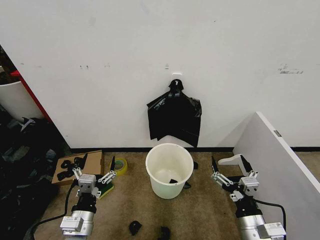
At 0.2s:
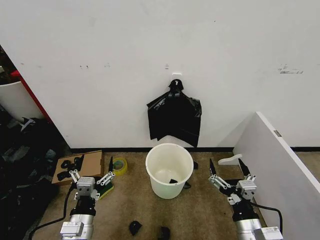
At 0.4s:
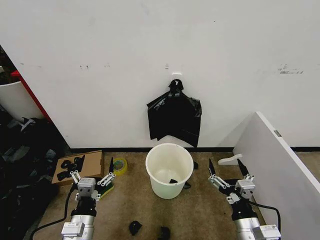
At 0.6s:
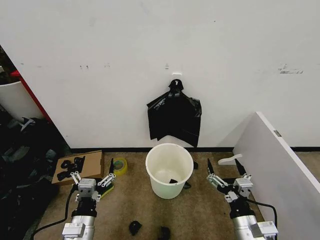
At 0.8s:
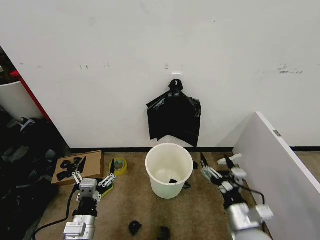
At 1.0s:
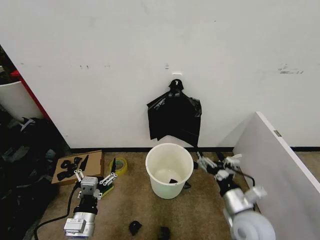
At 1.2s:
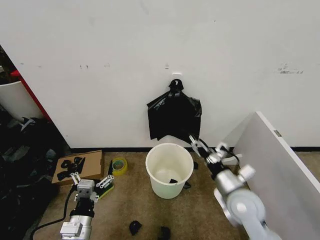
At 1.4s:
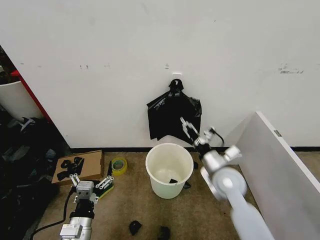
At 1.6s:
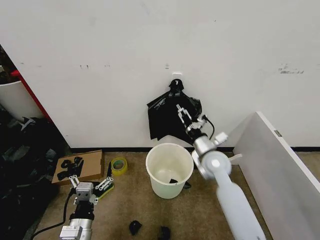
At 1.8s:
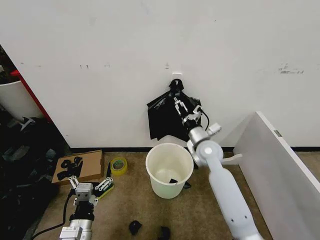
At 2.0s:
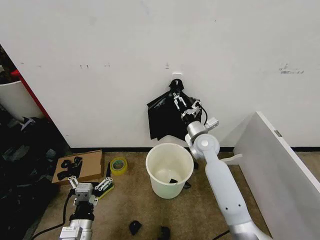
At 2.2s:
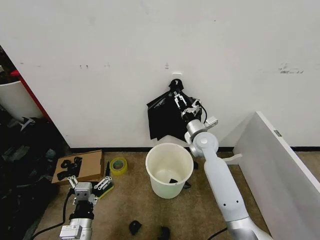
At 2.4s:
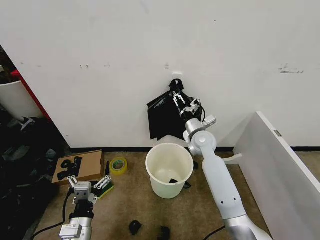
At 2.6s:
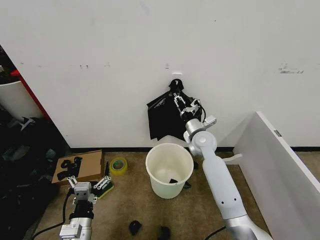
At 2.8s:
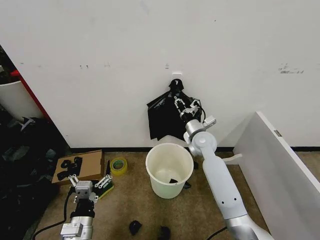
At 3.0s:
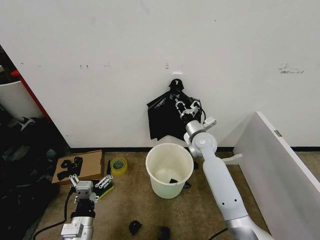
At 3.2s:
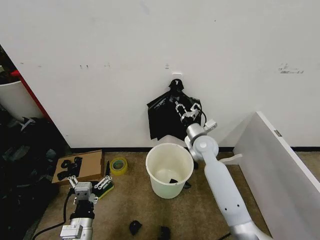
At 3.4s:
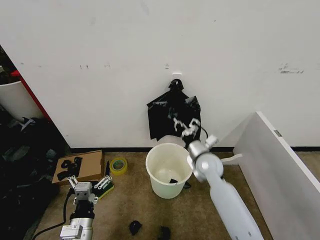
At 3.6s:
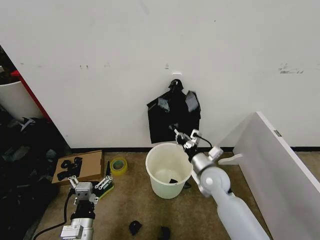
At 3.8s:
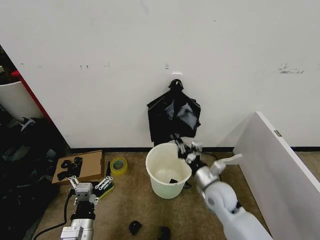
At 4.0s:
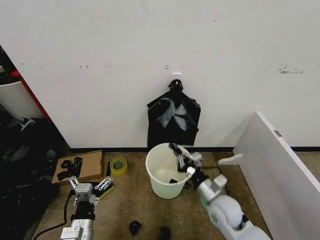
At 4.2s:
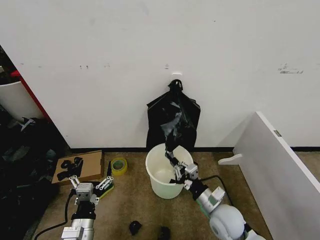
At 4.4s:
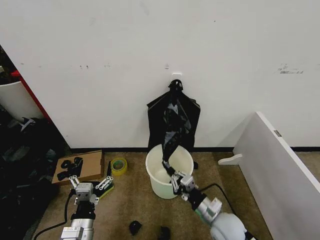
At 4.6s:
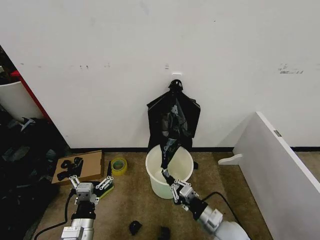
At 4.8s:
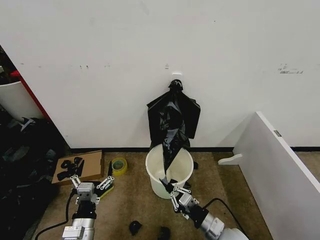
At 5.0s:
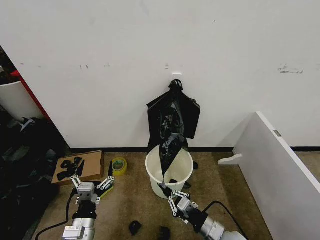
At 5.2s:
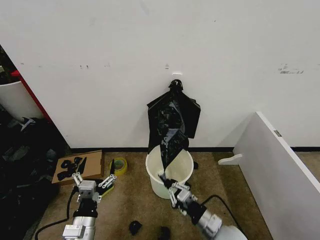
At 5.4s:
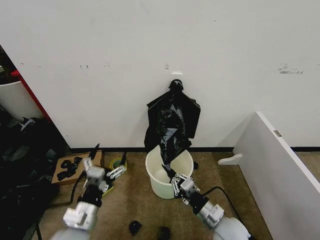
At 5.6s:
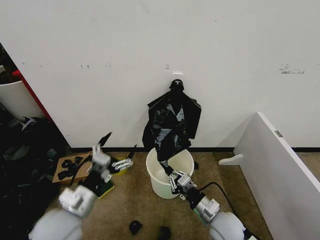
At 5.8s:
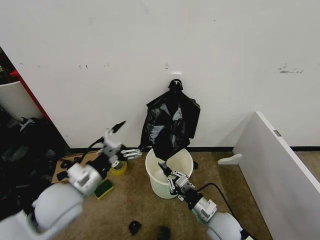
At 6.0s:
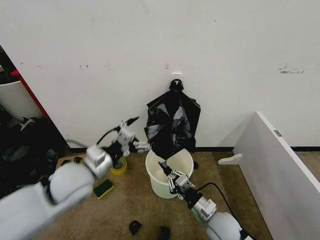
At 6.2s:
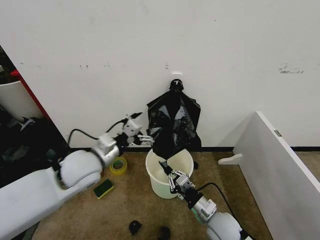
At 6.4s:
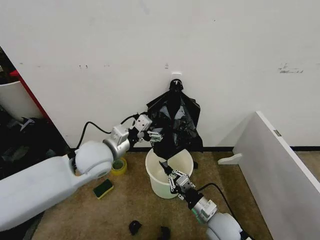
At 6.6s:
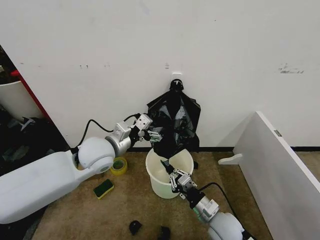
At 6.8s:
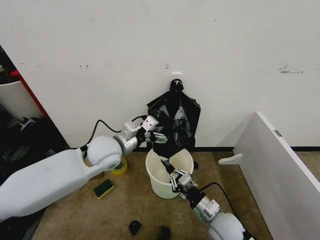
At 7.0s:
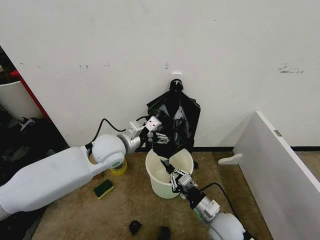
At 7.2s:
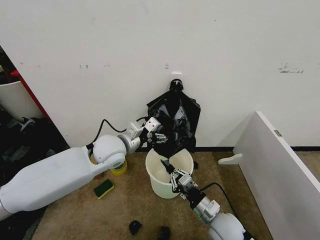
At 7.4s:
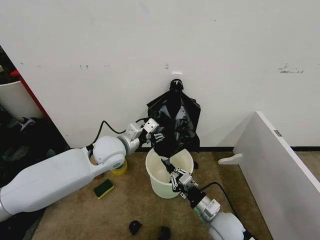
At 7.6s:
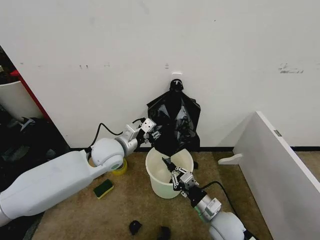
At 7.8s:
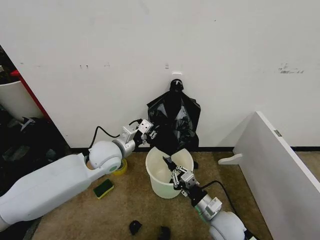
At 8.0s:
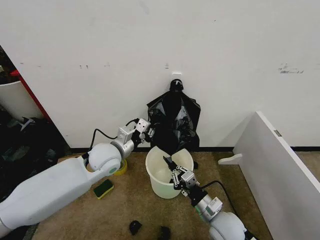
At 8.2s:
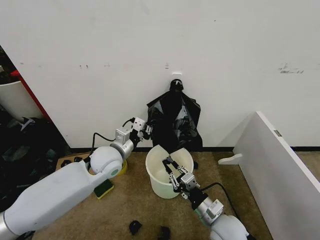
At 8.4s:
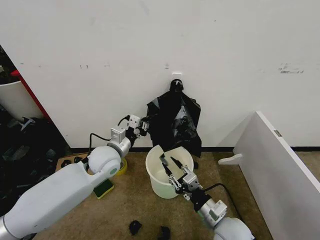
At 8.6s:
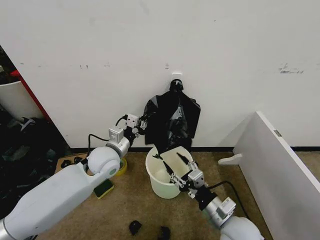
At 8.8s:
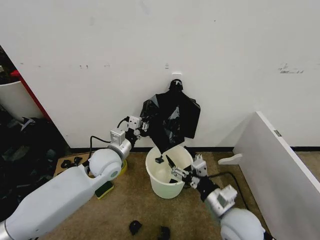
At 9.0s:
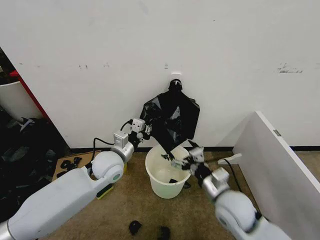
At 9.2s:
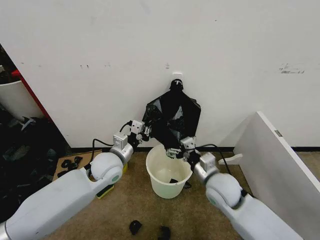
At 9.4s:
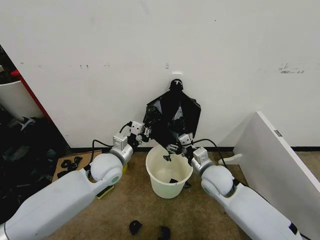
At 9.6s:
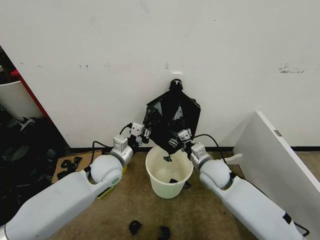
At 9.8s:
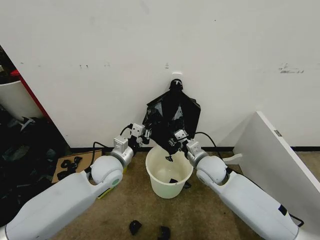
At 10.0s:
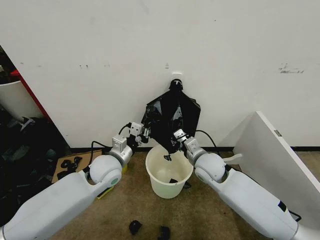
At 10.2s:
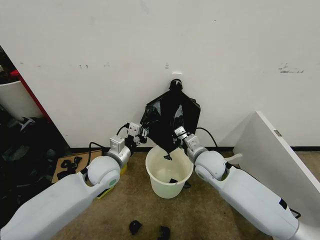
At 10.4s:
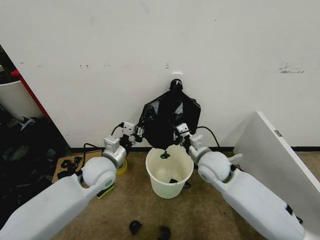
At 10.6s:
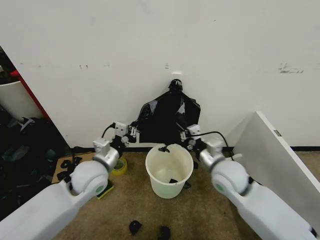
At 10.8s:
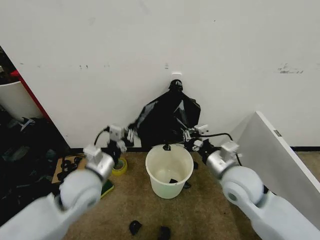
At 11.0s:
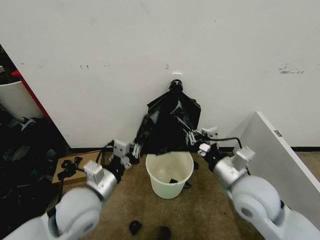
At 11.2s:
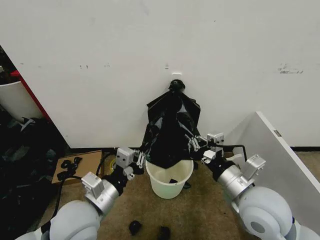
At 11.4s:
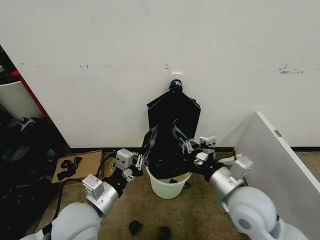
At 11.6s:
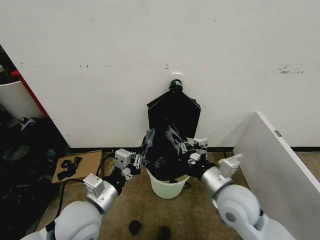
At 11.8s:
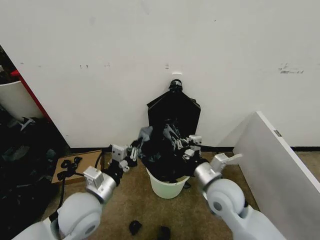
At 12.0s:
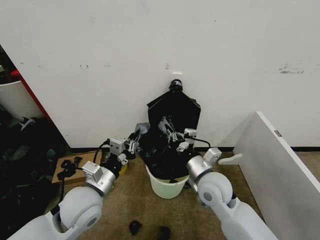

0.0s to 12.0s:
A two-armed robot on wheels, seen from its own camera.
Task of the whole recording: Place the garbage bag over the trash bin.
1.6s to 3.0s: The right gripper is displaced forward by roughly 10 cm, and closes up.
3.0s to 4.4s: The right gripper travels backward and downward by about 30 cm.
4.4s to 6.0s: The left gripper goes roughly 20 cm upward and forward.
6.0s to 7.6s: The left gripper travels forward and to the right by some 10 cm, and closes its fingers.
7.6s to 9.0s: The right gripper shifts roughly 10 cm upward, and opens up. Meanwhile the left gripper ends up about 5 cm from where it was, and closes its fingers.
9.0s to 10.4s: The right gripper heads forward, covering roughly 10 cm, and closes up.
10.4s to 12.0s: Both grippers travel together backward, approximately 10 cm.

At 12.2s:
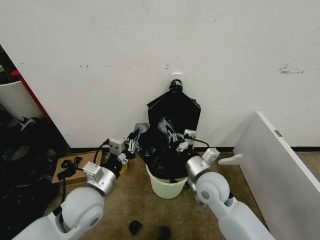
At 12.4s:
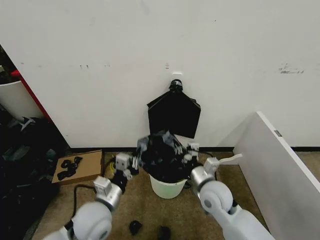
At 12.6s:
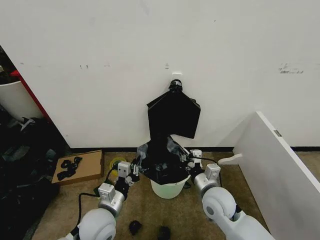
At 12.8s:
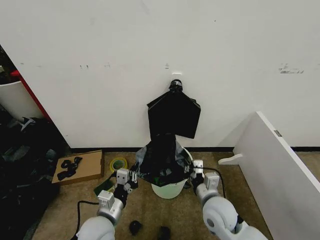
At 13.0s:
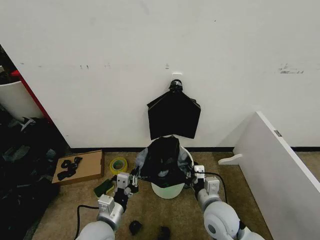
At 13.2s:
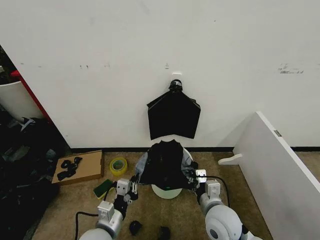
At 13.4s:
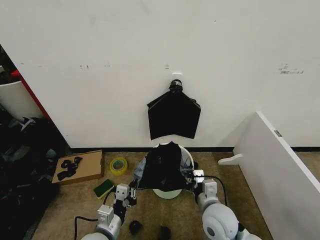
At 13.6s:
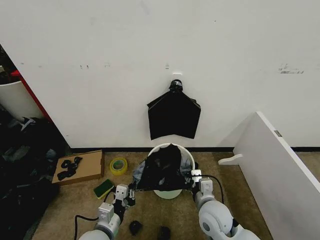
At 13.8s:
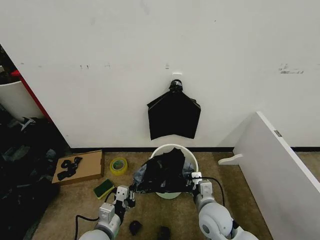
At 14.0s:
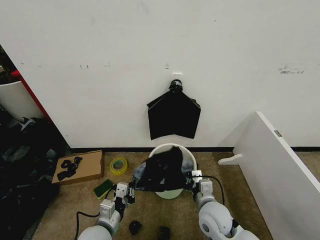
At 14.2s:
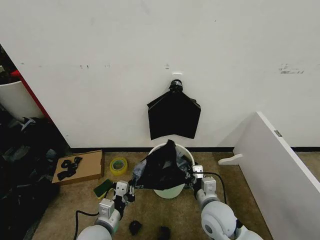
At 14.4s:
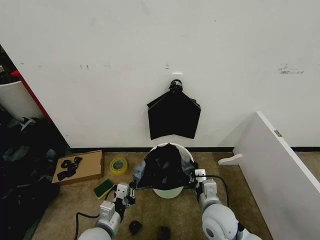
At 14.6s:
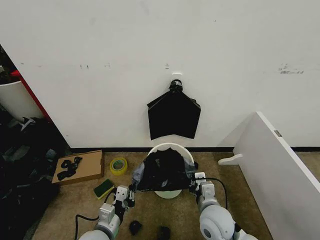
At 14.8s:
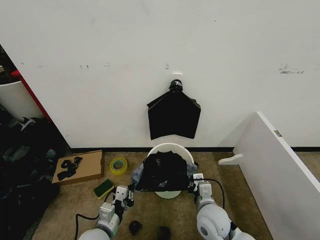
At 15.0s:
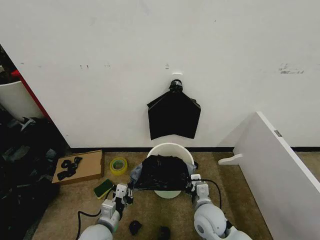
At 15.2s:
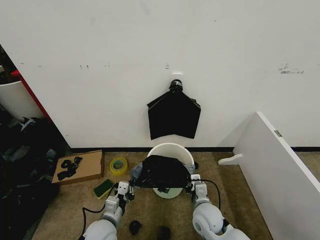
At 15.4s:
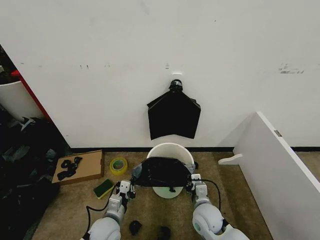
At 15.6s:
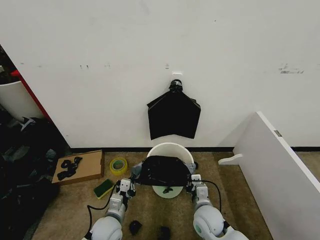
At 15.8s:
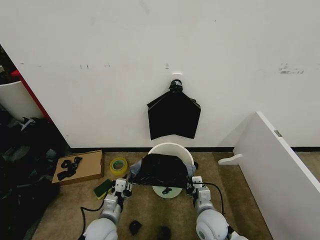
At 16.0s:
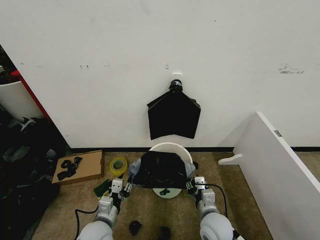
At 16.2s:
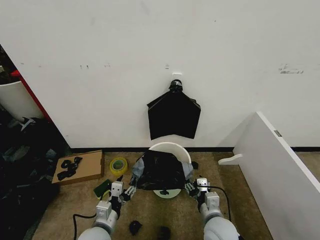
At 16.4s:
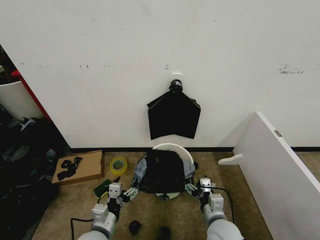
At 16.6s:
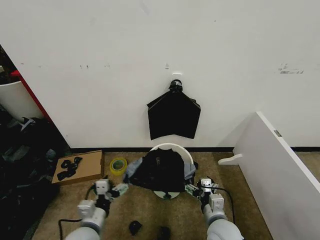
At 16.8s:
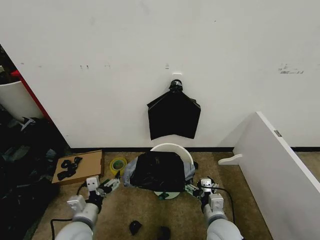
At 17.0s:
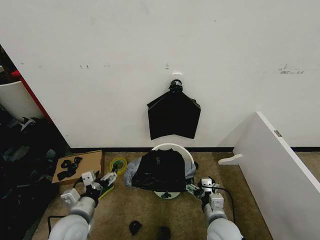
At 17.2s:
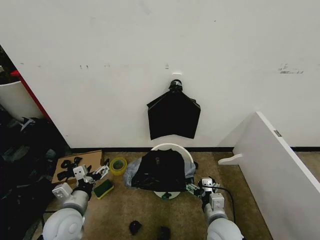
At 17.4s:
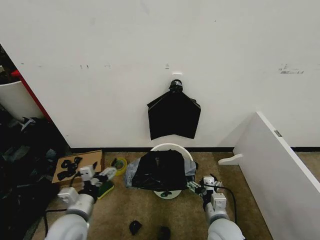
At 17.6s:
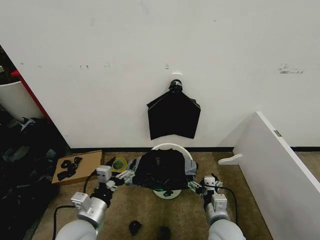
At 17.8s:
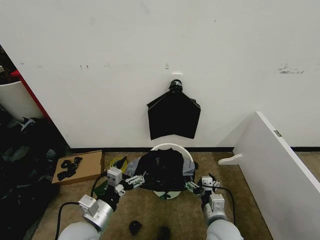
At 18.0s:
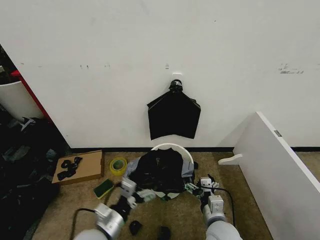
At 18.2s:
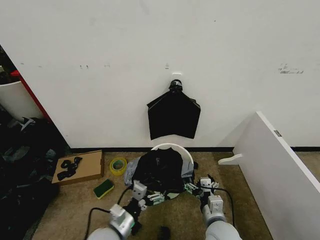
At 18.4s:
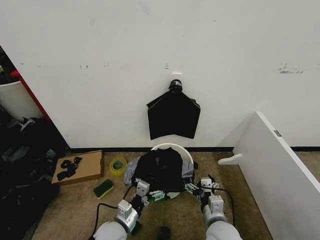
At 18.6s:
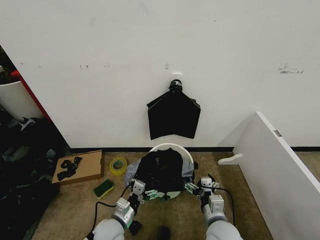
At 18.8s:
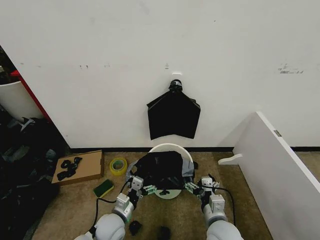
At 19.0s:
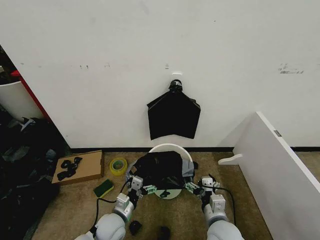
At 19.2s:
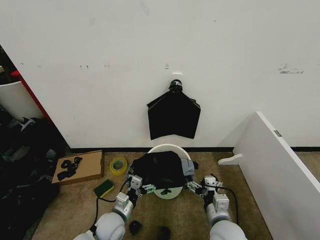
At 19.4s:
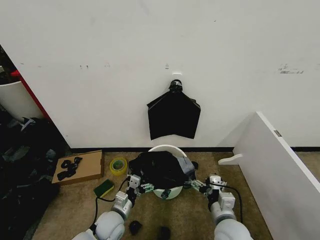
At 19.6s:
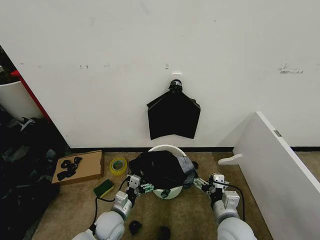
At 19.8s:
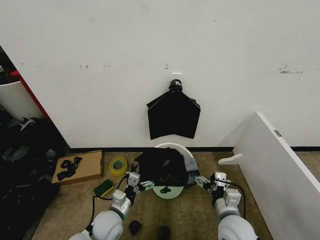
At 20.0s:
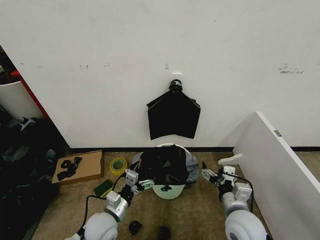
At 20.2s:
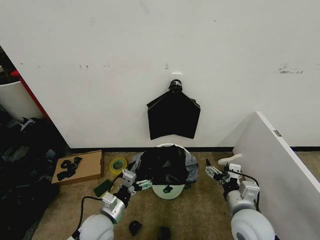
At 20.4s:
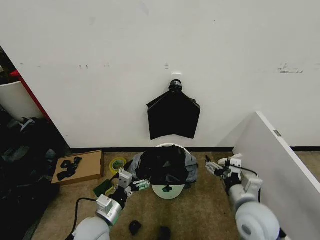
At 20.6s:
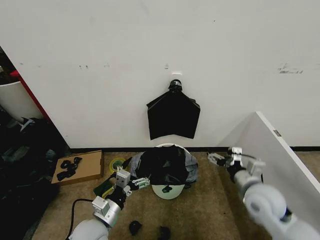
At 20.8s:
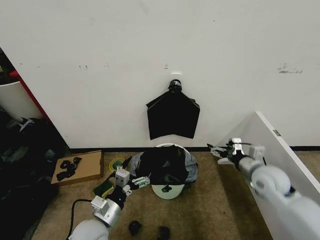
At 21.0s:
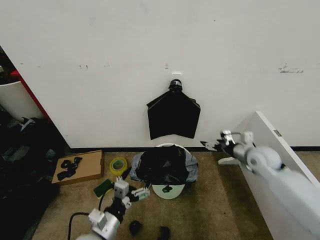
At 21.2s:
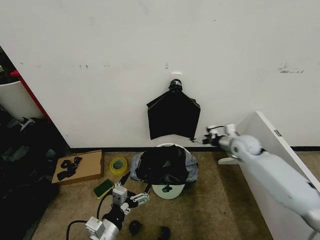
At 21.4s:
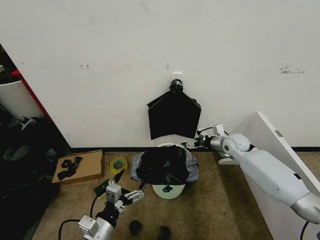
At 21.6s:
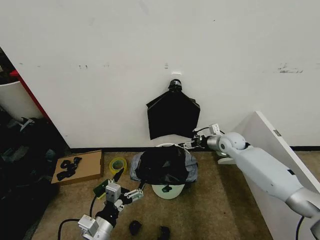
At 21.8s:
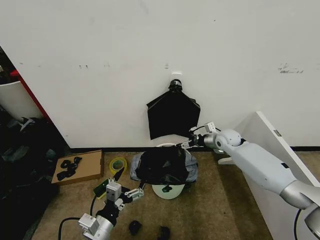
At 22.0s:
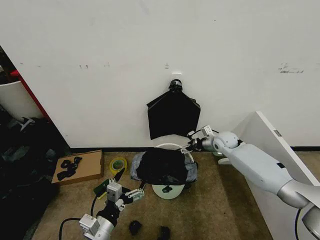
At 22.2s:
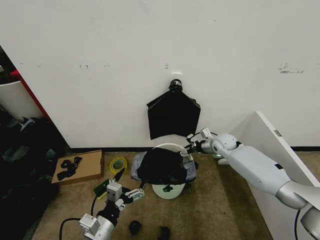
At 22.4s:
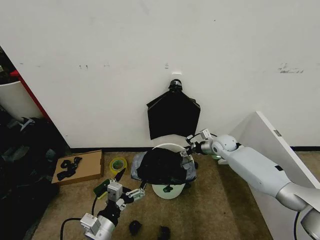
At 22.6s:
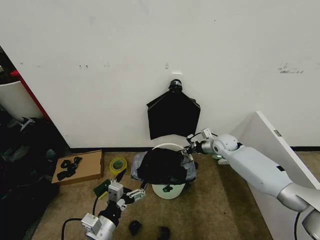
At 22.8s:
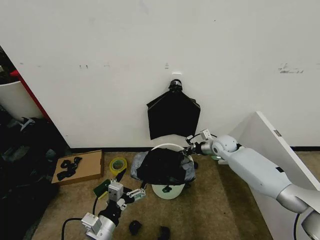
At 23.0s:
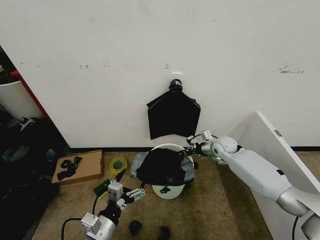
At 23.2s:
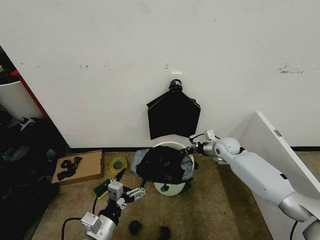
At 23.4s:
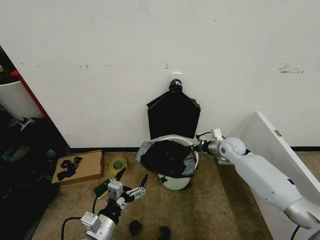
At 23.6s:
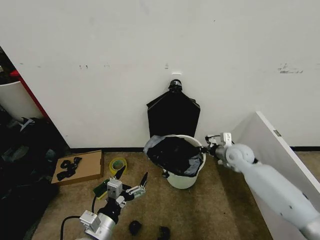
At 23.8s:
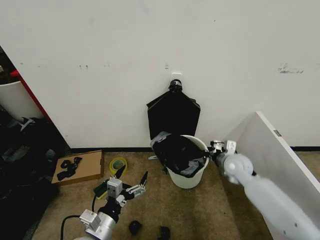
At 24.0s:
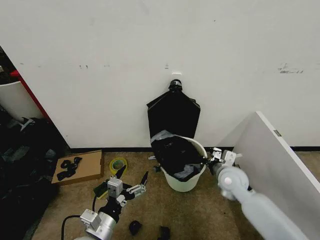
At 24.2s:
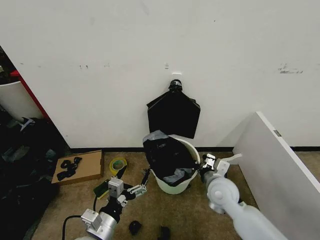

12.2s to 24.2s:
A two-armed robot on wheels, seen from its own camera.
Task of the whole recording: Place the garbage bag over the trash bin.
12.2s to 13.8s: Both grippers travel together downward and backward, about 15 cm.
13.8s to 15.2s: The left gripper changes place by some 5 cm.
15.2s to 16.6s: The right gripper goes about 5 cm backward, and opens. Meanwhile the left gripper shifts by about 5 cm, and opens its fingers.
16.6s to 18.2s: The left gripper heads to the right, covering about 5 cm.
18.2s to 19.8s: The right gripper shifts by some 5 cm. The left gripper goes about 5 cm forward.
19.8s to 21.2s: The left gripper moves backward and upward, some 10 cm; the right gripper travels forward and to the right by some 30 cm.
21.2s to 22.6s: The right gripper shifts by some 5 cm, and closes.
22.6s to 24.2s: The right gripper shifts approximately 20 cm backward, and closes up.
